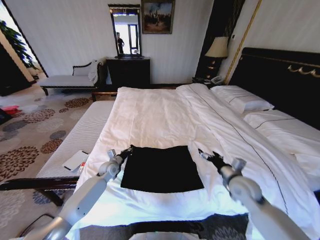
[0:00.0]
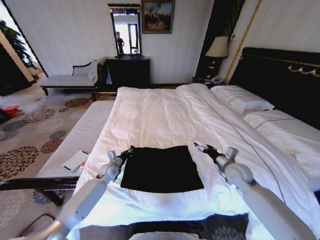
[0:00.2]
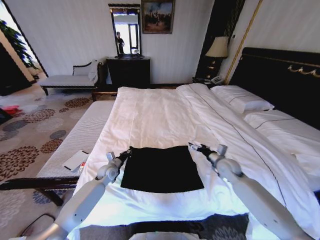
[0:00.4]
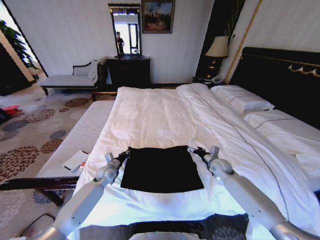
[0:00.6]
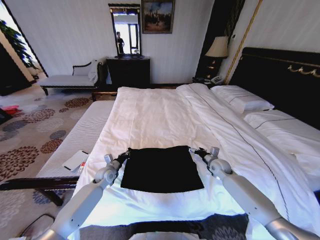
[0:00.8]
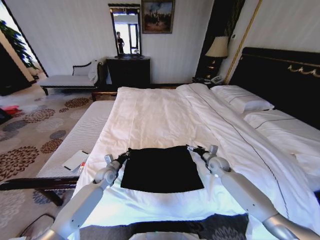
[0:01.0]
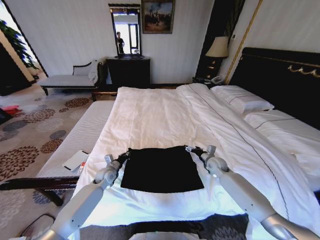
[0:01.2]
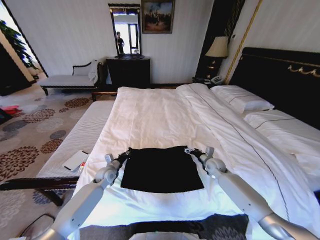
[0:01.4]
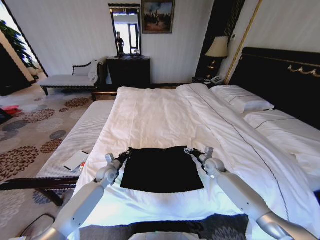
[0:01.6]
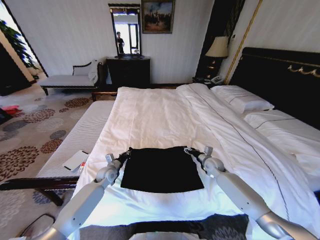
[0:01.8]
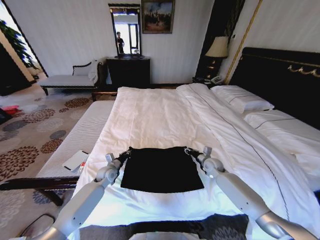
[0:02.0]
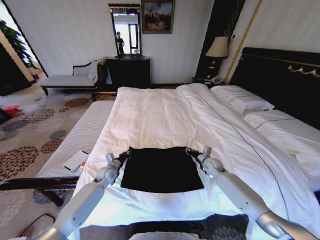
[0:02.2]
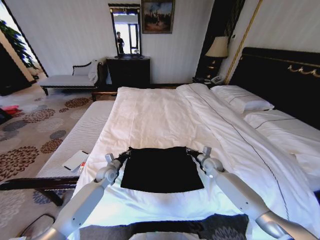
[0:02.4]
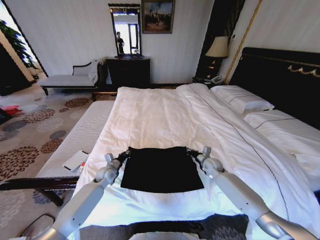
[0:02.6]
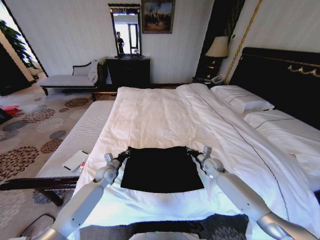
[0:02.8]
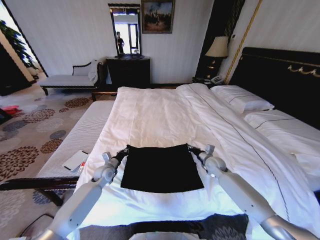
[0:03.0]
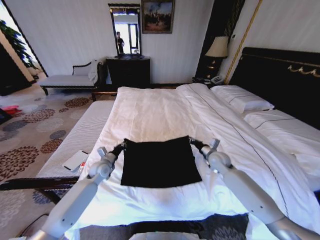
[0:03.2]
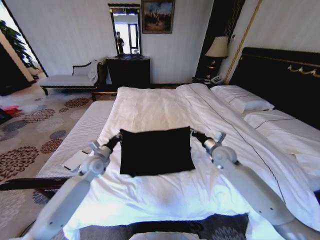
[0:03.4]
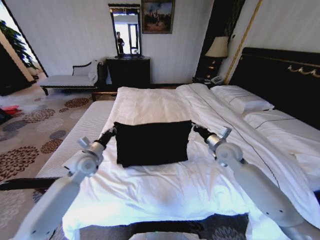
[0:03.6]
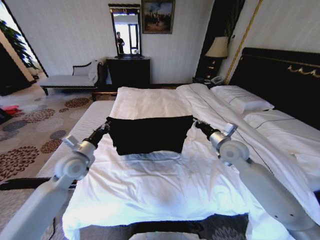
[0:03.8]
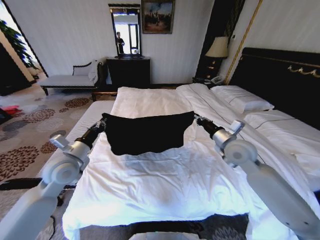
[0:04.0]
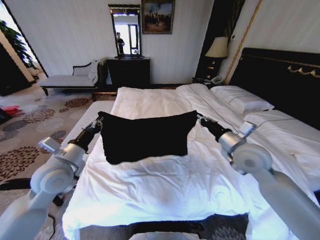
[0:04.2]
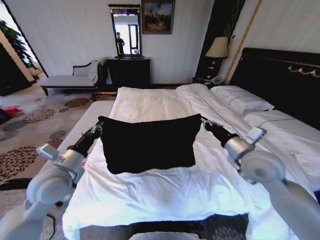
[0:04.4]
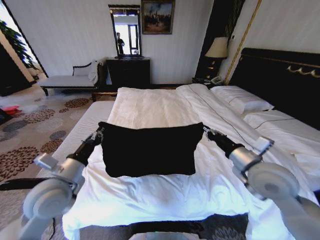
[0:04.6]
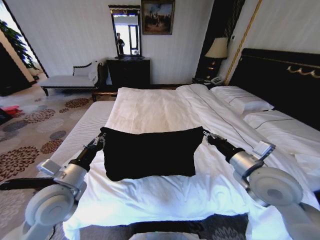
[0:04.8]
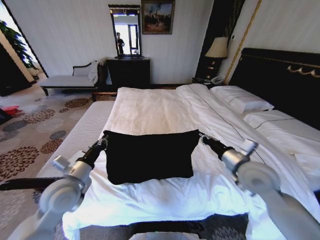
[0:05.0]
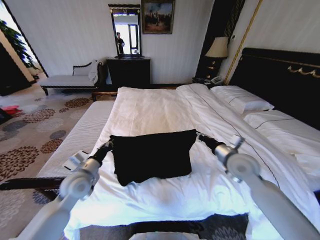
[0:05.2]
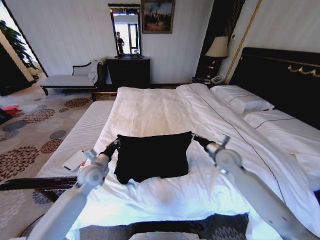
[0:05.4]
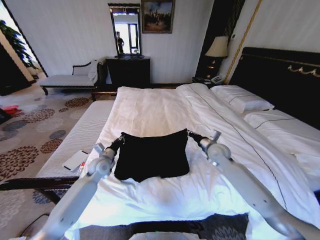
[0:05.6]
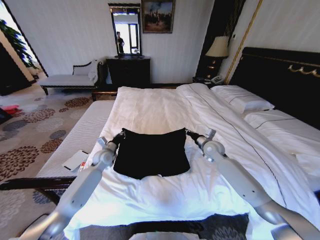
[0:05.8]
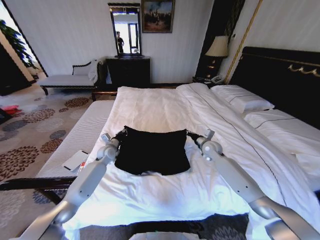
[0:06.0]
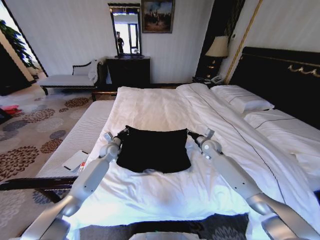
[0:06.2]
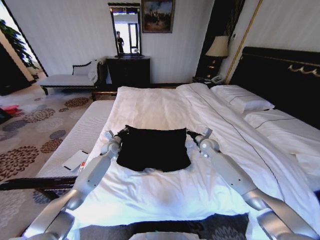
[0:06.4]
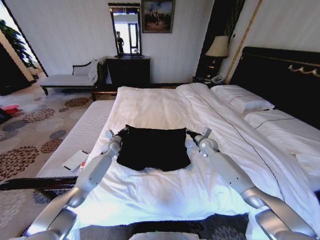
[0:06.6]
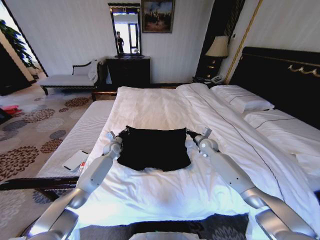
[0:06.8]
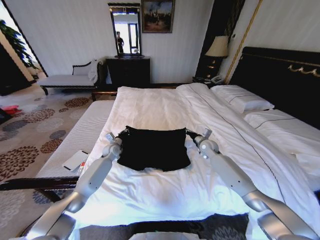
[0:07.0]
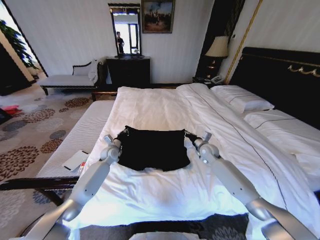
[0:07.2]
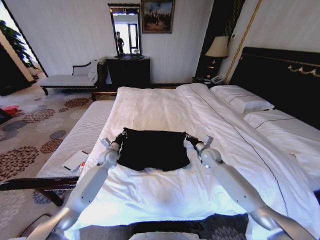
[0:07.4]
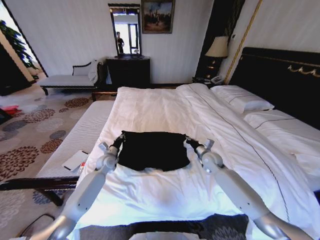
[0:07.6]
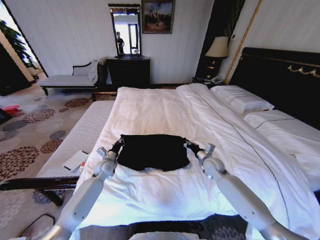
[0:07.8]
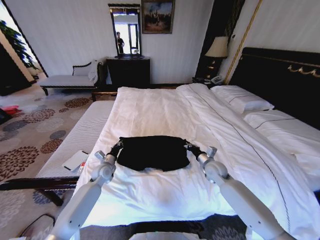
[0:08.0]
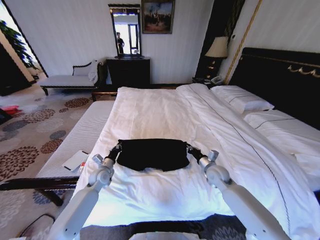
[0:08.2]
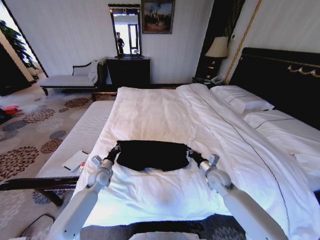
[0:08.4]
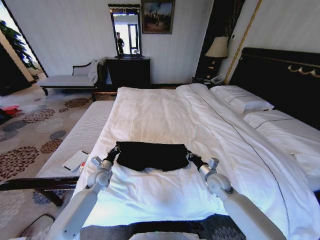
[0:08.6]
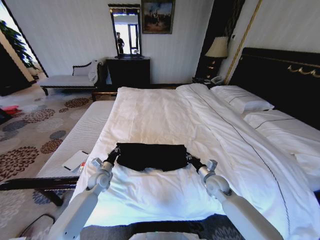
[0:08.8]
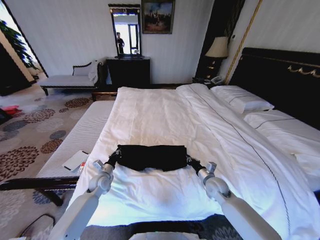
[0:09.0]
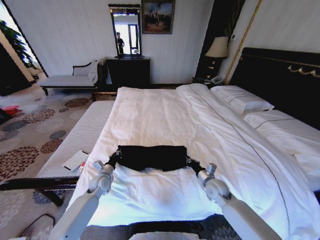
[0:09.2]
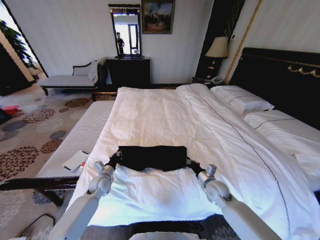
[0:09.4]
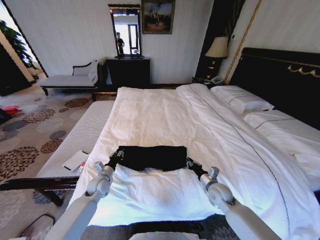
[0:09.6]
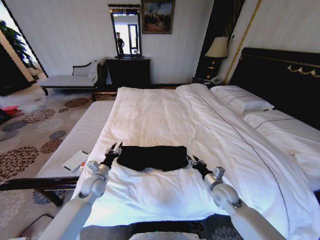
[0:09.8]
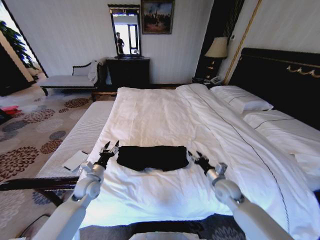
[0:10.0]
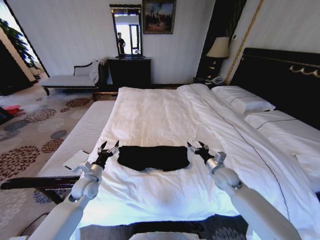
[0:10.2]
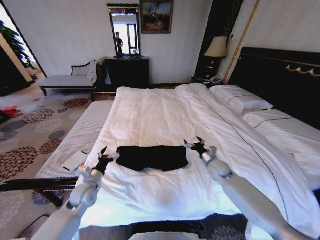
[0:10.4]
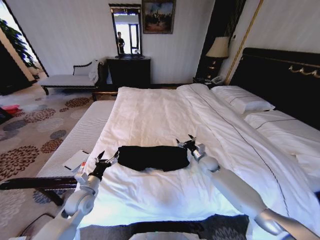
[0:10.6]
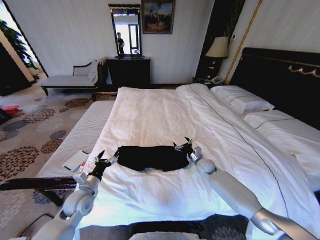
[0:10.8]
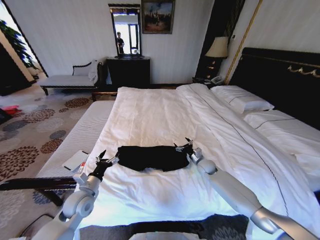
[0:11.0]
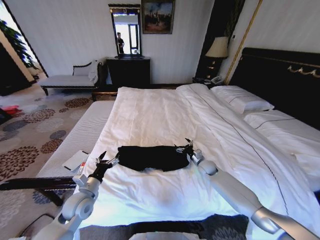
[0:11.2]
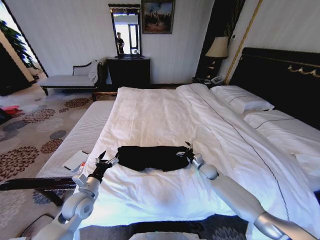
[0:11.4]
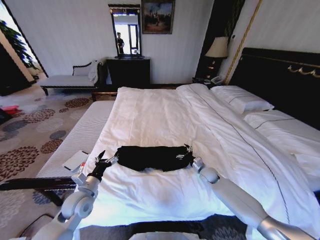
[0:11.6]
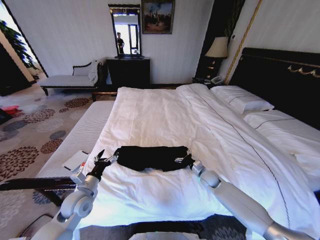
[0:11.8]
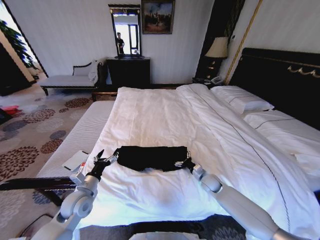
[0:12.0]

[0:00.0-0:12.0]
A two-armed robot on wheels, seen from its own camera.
Task of the whole recording: Fold the clothes on the bed.
0:00.0 to 0:01.6: The right gripper is displaced forward and downward by roughly 20 cm.
0:01.6 to 0:03.0: The right gripper closes its fingers.
0:03.0 to 0:04.4: Both grippers travel together upward and backward, roughly 25 cm.
0:04.4 to 0:06.0: The grippers both shift forward and downward by about 25 cm.
0:06.0 to 0:07.6: The right gripper moves backward, some 5 cm, while the left gripper shifts by about 5 cm.
0:07.6 to 0:09.0: The left gripper shifts roughly 10 cm backward; the right gripper shifts about 10 cm backward and downward.
0:09.0 to 0:10.4: The left gripper goes roughly 10 cm backward and upward, and opens up; the right gripper moves forward, roughly 5 cm, and opens up.
0:10.4 to 0:12.0: The right gripper shifts about 10 cm downward.

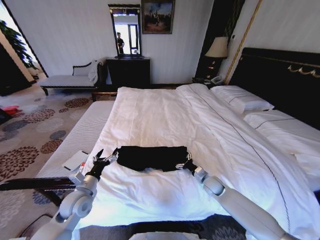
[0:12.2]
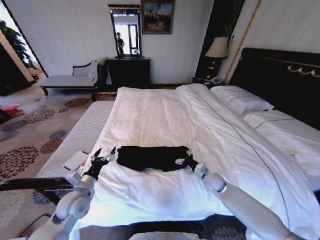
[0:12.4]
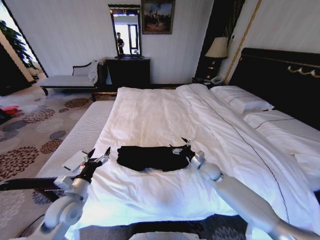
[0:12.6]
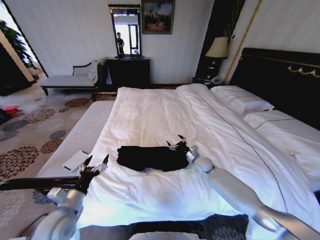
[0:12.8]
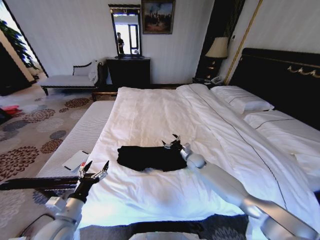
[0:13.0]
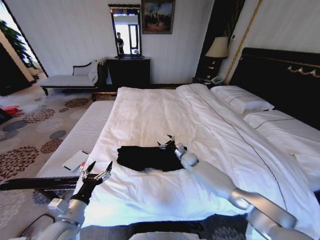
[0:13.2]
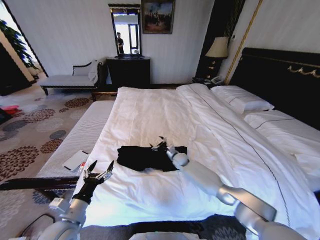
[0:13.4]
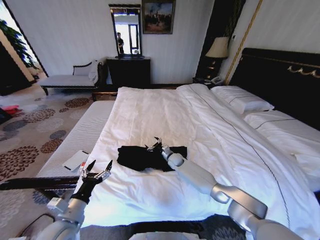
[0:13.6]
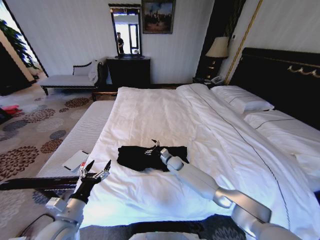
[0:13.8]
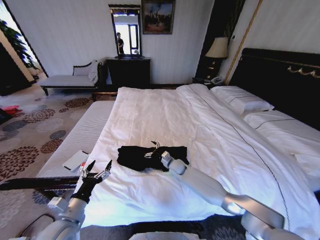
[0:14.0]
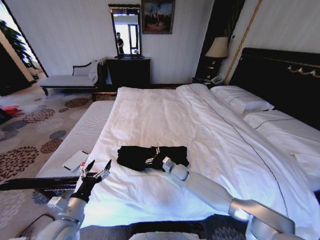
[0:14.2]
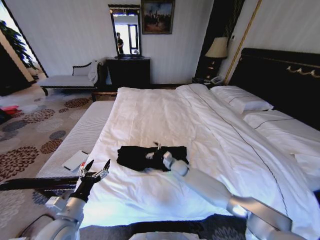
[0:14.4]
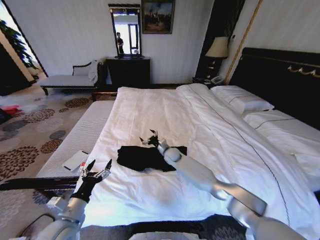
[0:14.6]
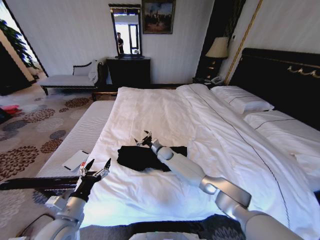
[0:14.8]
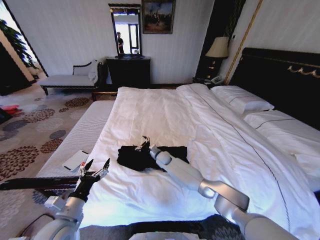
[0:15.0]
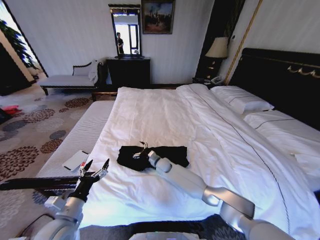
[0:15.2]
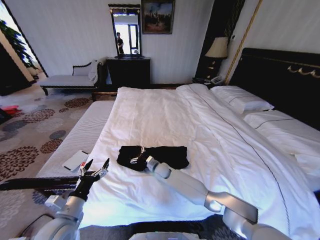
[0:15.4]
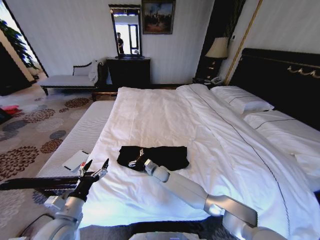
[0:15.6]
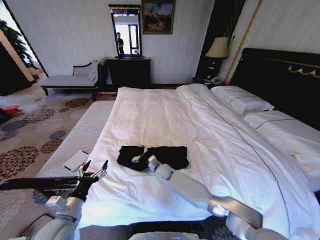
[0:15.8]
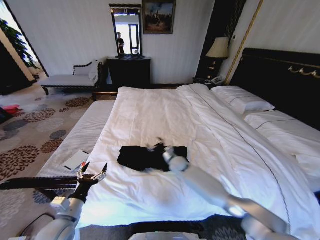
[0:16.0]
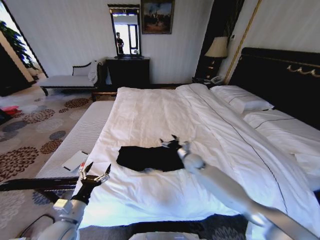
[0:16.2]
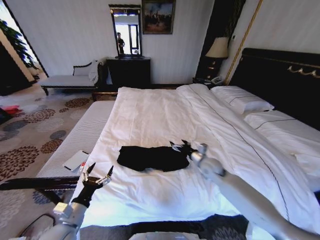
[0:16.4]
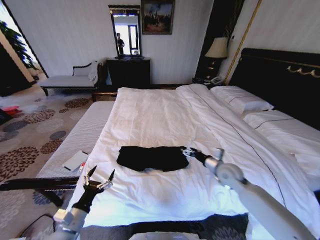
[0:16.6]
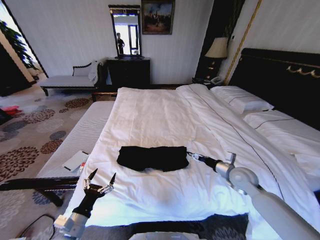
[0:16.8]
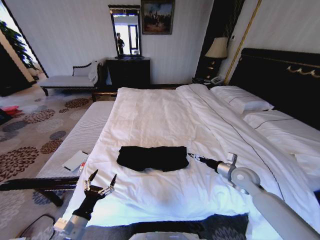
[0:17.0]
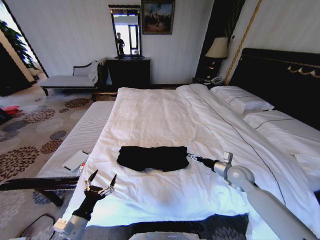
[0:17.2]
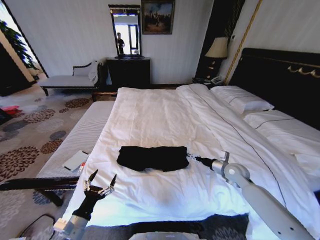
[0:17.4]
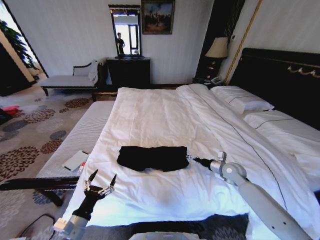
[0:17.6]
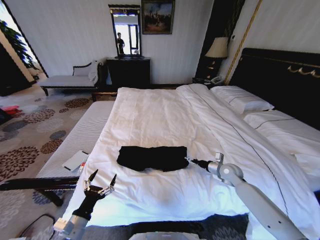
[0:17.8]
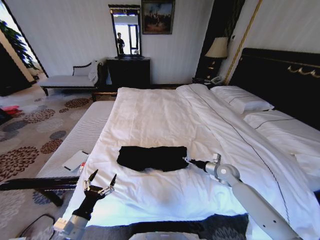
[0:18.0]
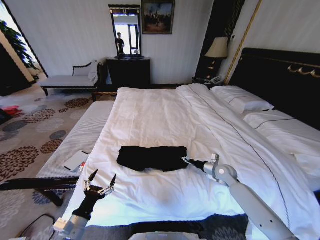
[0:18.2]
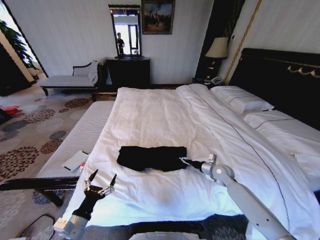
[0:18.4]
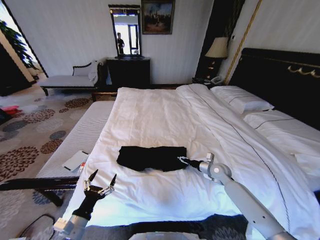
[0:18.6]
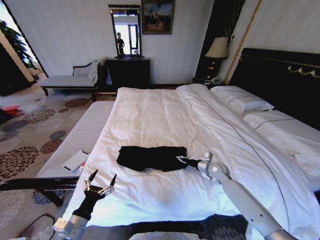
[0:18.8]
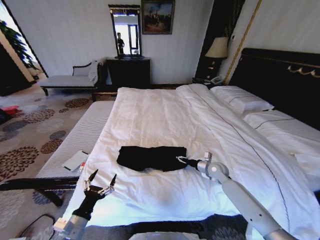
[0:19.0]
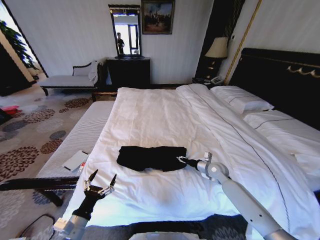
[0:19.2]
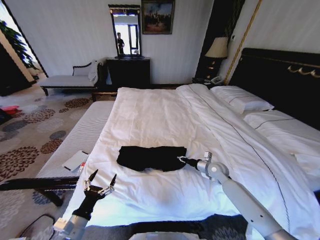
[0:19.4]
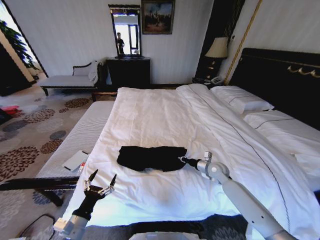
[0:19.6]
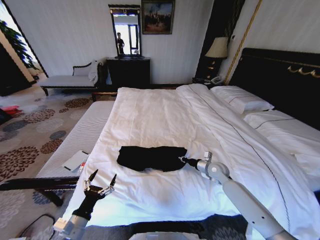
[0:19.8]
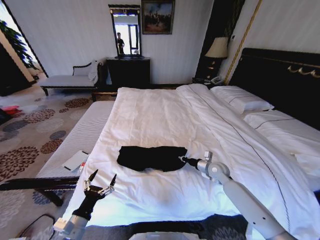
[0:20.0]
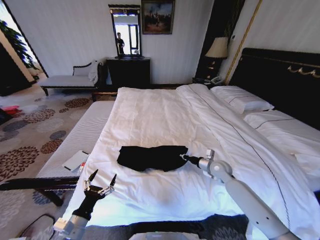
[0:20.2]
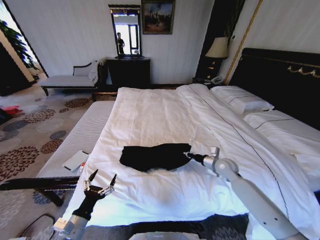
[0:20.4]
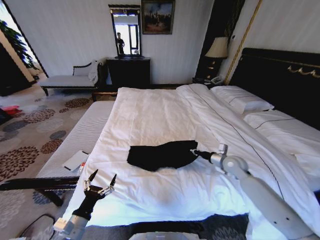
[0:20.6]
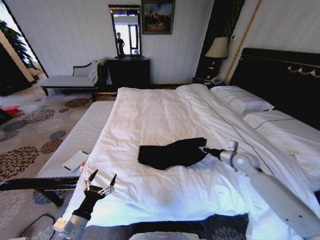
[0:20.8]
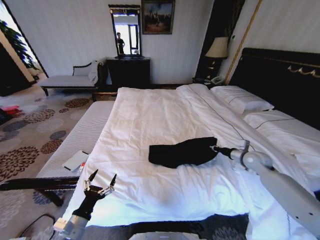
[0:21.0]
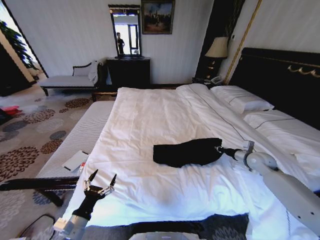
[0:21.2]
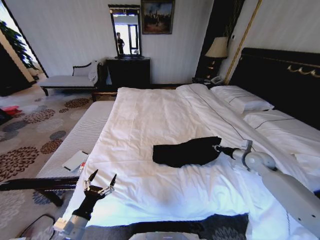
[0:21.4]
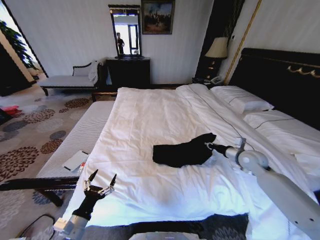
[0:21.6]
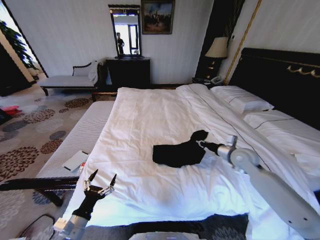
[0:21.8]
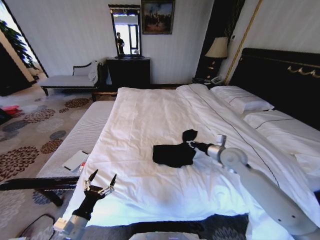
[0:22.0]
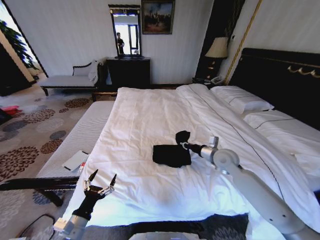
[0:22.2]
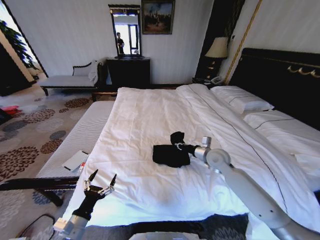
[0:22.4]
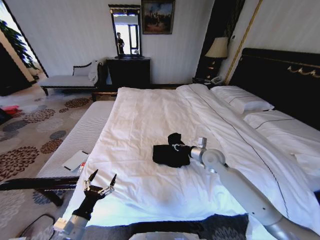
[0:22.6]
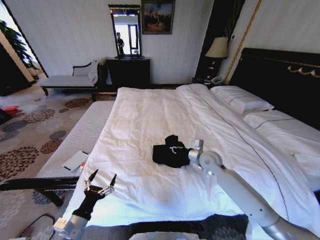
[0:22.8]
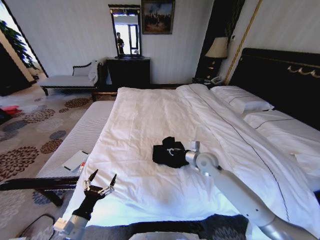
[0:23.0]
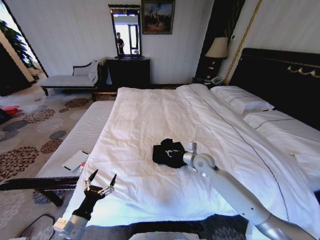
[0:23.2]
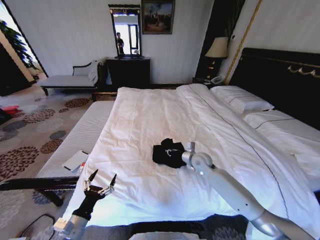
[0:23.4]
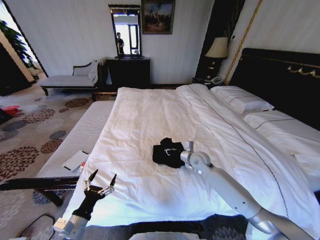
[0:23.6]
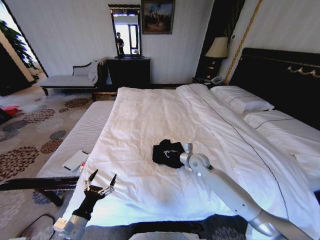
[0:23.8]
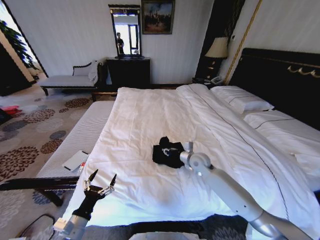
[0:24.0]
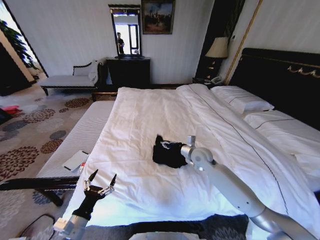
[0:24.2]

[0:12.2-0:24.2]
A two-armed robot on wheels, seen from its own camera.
Task of the whole recording: Fold the clothes on the bed.
0:12.2 to 0:13.8: The left gripper is displaced backward by some 10 cm. The right gripper moves to the left and forward, some 20 cm.
0:13.8 to 0:15.2: The right gripper goes forward and backward, about 10 cm each way, reversing 2 times.
0:15.2 to 0:16.6: The right gripper shifts approximately 35 cm to the right, upward and backward.
0:16.6 to 0:18.2: The right gripper moves downward, some 5 cm.
0:18.2 to 0:19.8: The right gripper closes up.
0:19.8 to 0:21.2: The right gripper heads to the right and upward, covering roughly 20 cm.
0:21.2 to 0:22.6: The right gripper heads to the left, covering approximately 20 cm.
0:22.6 to 0:24.2: The right gripper opens.
